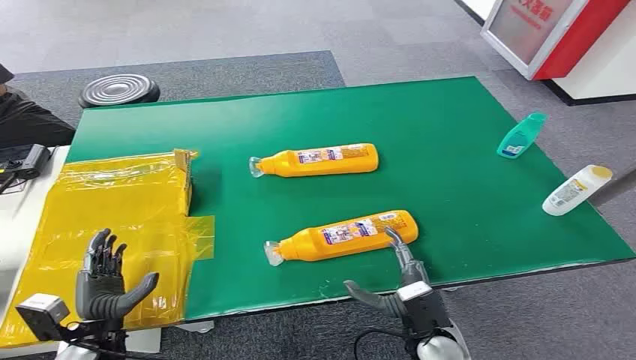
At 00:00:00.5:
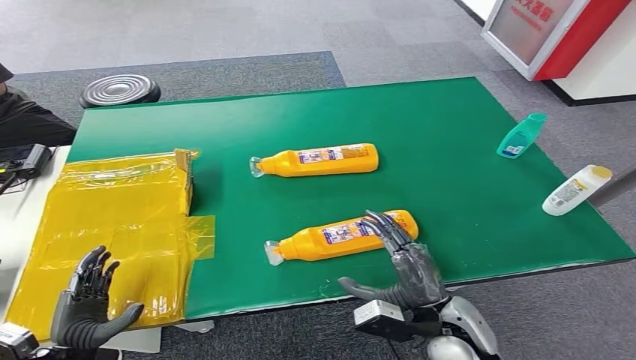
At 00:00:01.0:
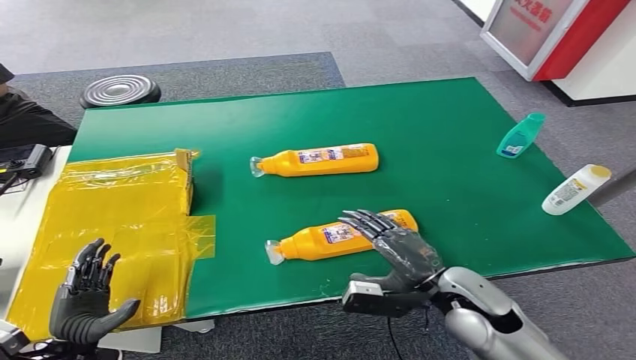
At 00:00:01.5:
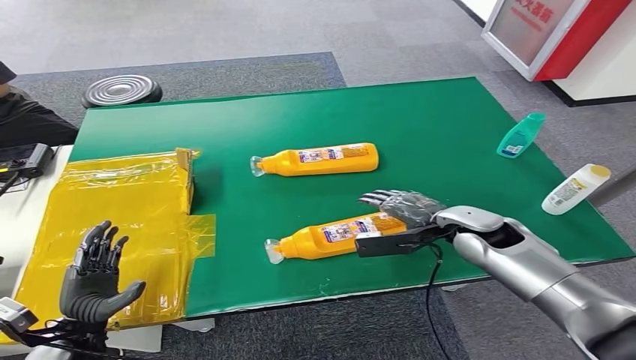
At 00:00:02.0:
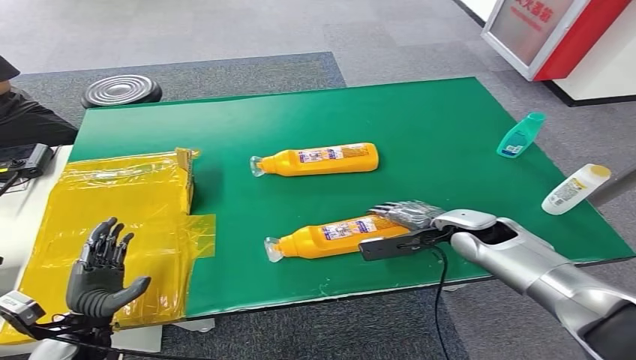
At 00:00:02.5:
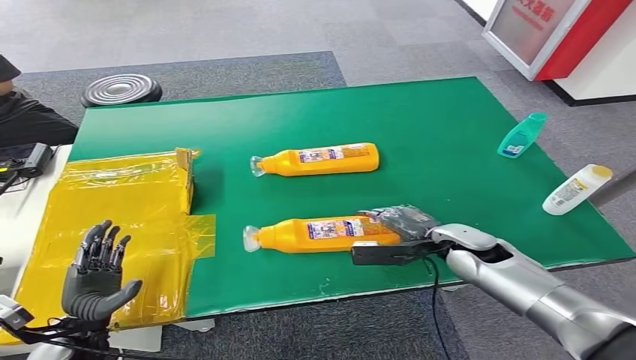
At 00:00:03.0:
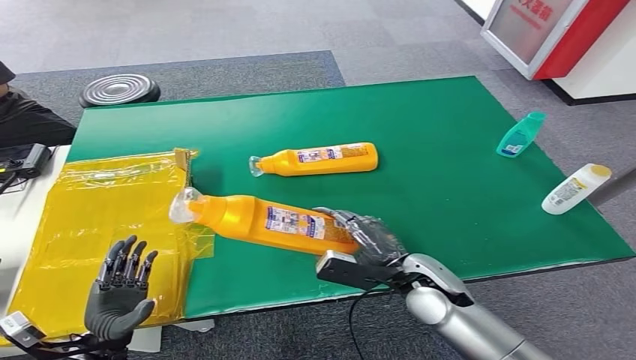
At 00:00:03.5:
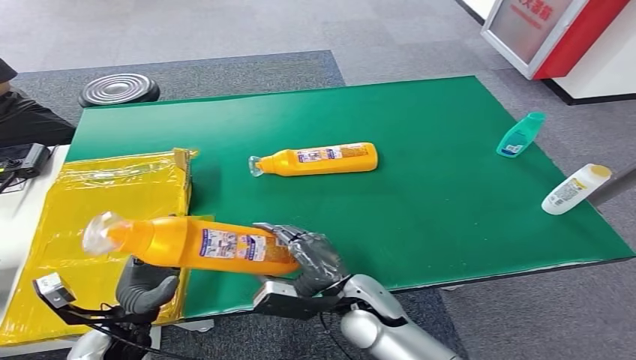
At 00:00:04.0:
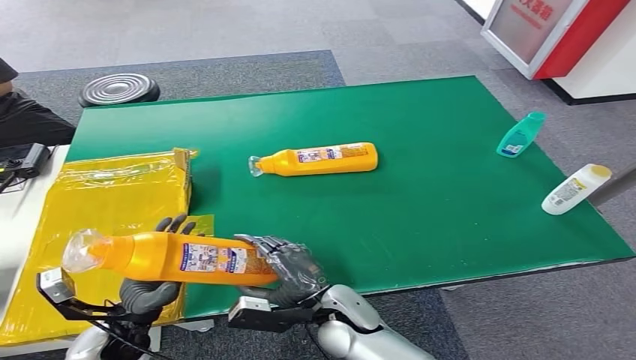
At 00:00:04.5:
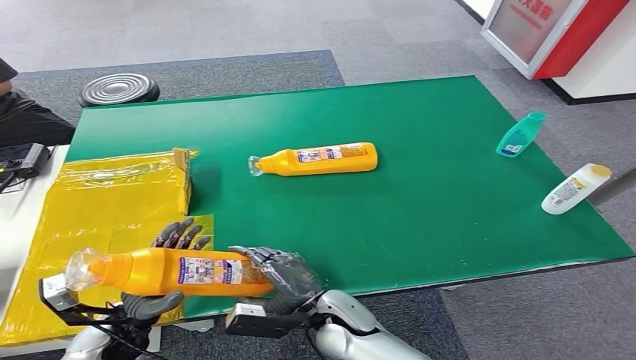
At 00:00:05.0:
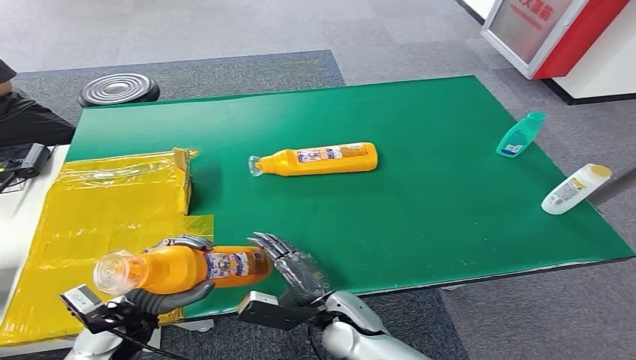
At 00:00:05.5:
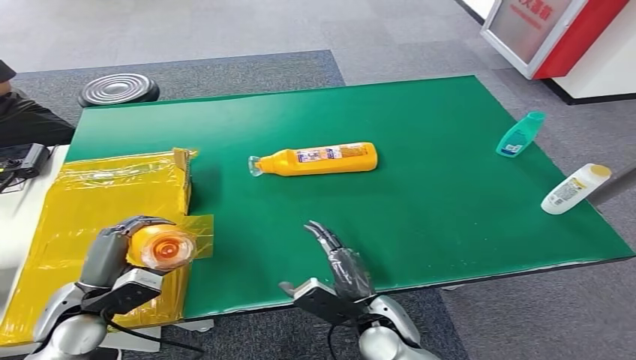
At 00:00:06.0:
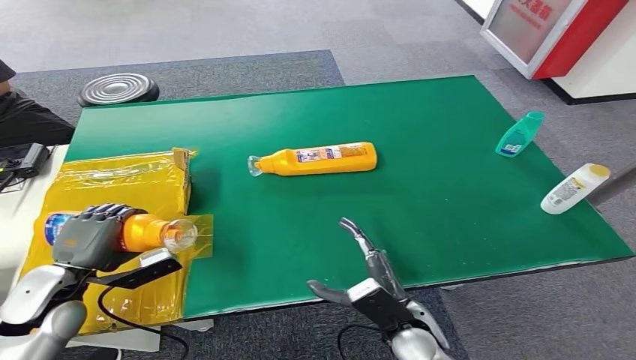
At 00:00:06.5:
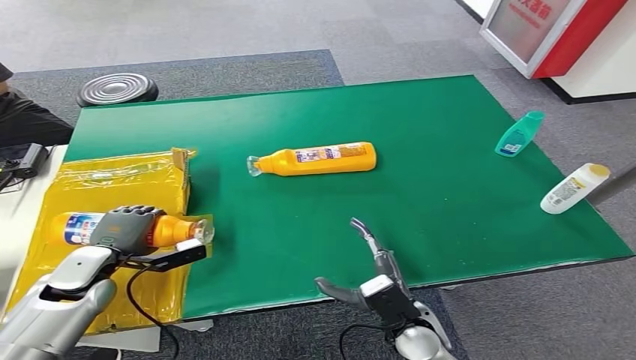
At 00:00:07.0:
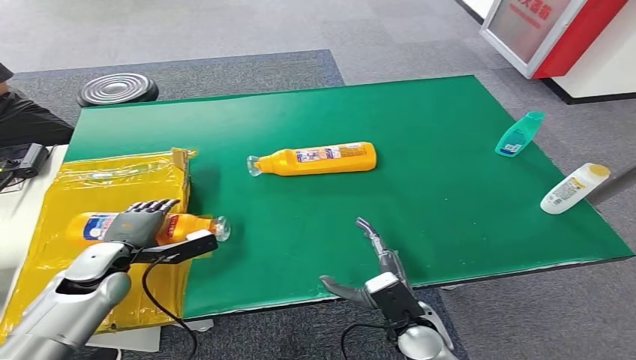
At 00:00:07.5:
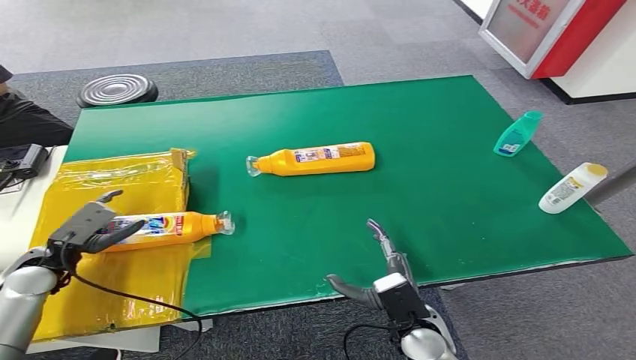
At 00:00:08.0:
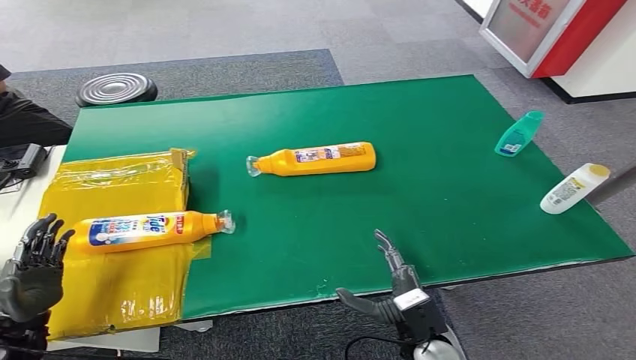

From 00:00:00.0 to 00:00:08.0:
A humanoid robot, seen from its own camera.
Step, from 00:00:00.0 to 00:00:03.5: Pick up the bottle from the table.
Step, from 00:00:06.0 to 00:00:08.0: Turn the bottle to the front side.
From 00:00:04.0 to 00:00:06.0: The left hand travels to the left, upward and forward by some 10 cm. The right hand heads to the right, covering roughly 10 cm.
From 00:00:06.0 to 00:00:08.0: The right hand changes place by roughly 5 cm, while the left hand goes approximately 10 cm to the left, backward and downward.
